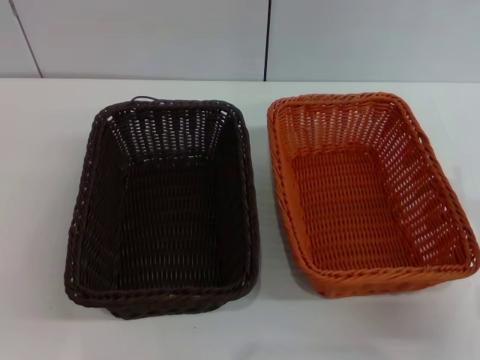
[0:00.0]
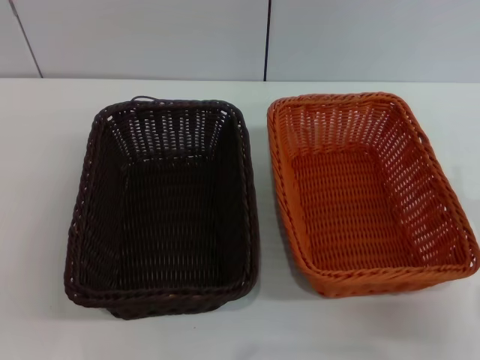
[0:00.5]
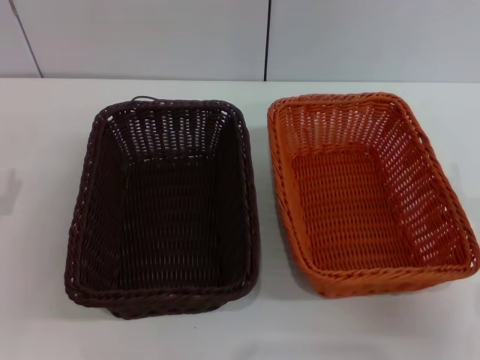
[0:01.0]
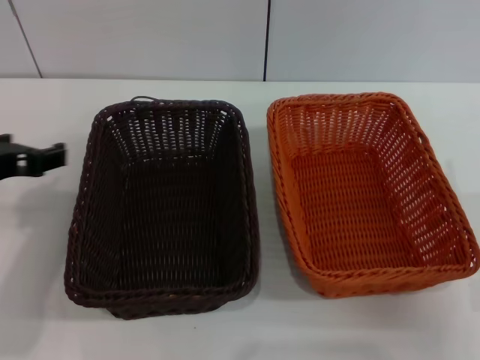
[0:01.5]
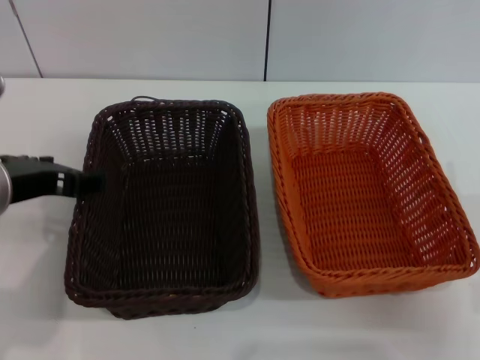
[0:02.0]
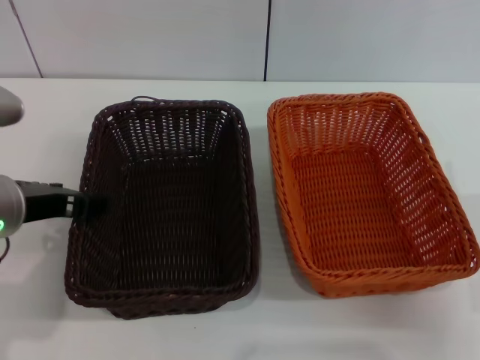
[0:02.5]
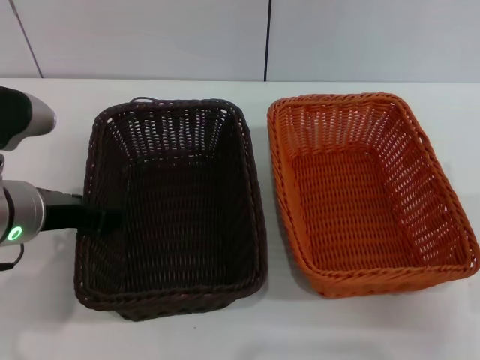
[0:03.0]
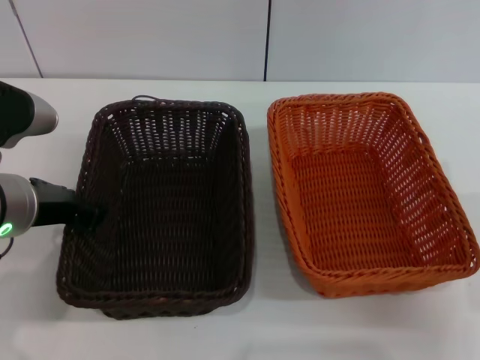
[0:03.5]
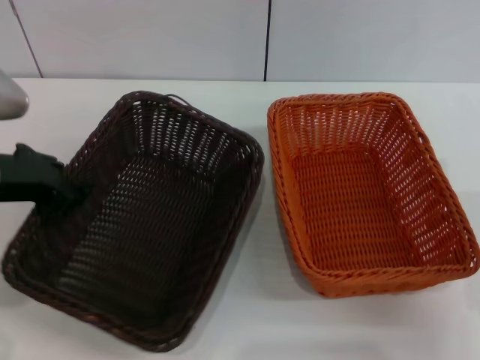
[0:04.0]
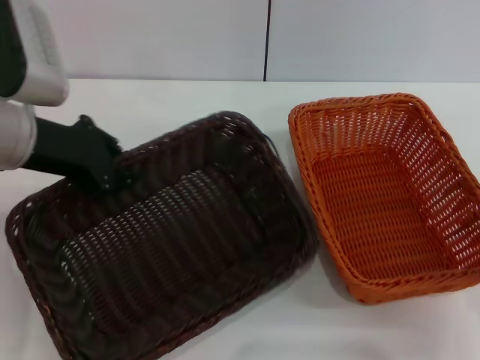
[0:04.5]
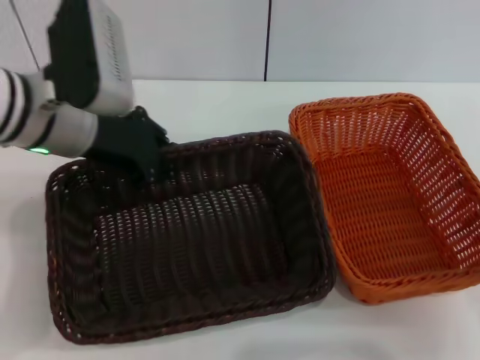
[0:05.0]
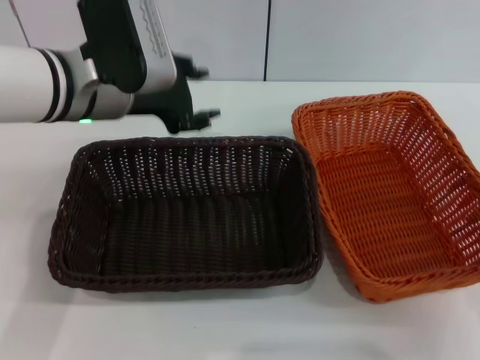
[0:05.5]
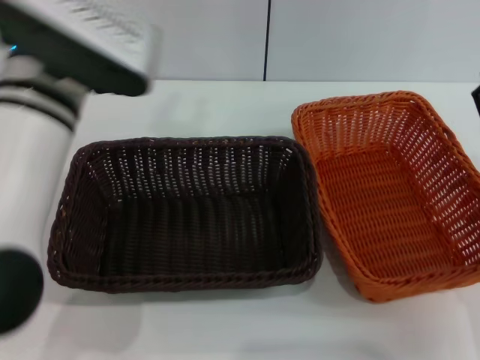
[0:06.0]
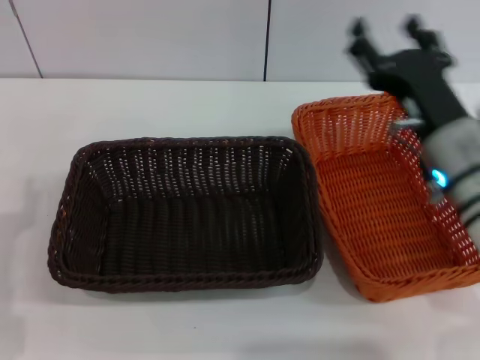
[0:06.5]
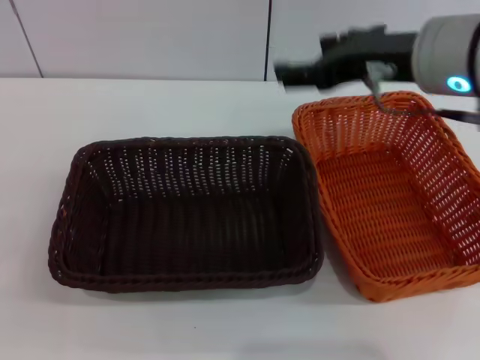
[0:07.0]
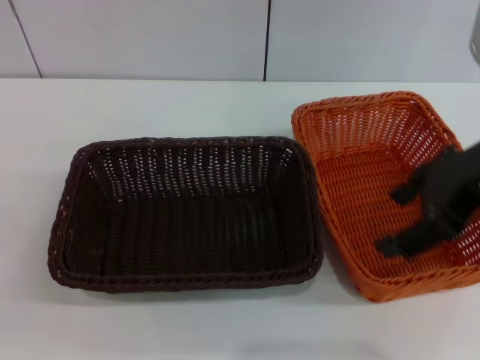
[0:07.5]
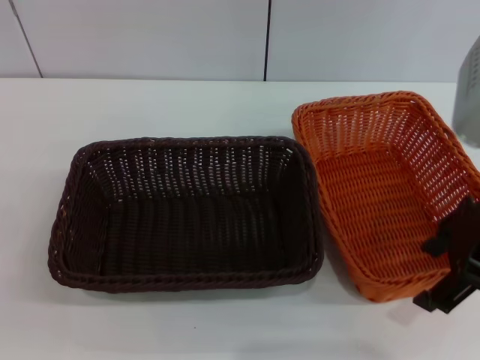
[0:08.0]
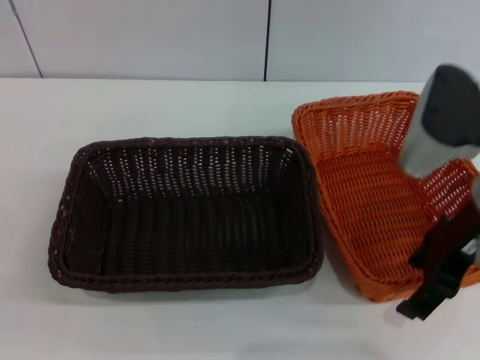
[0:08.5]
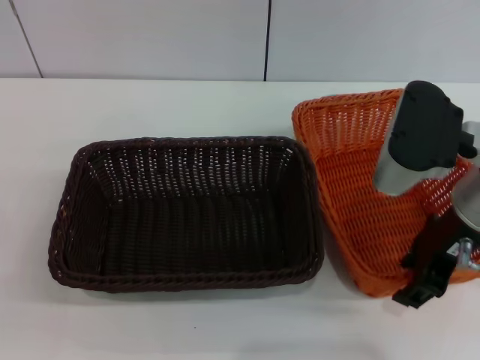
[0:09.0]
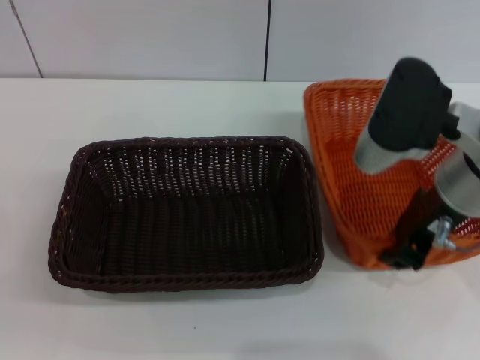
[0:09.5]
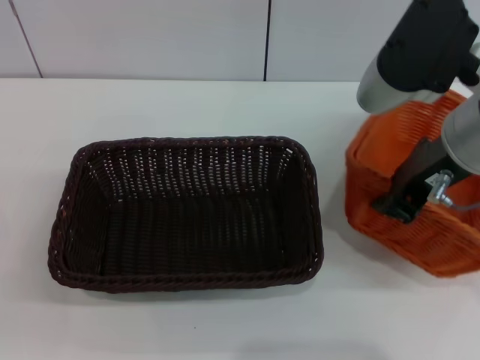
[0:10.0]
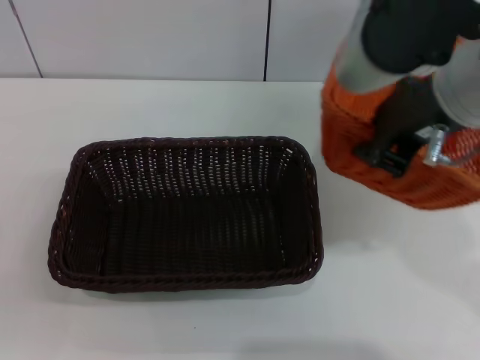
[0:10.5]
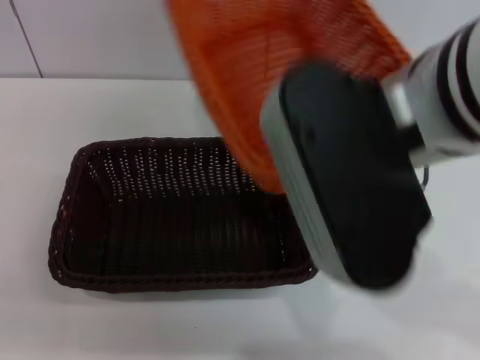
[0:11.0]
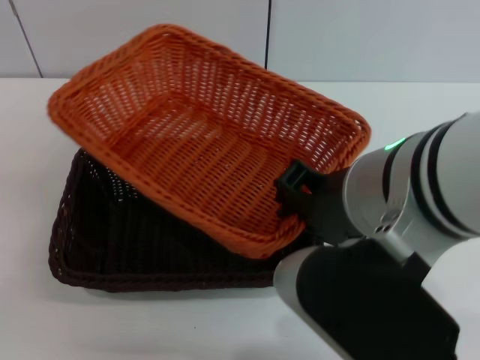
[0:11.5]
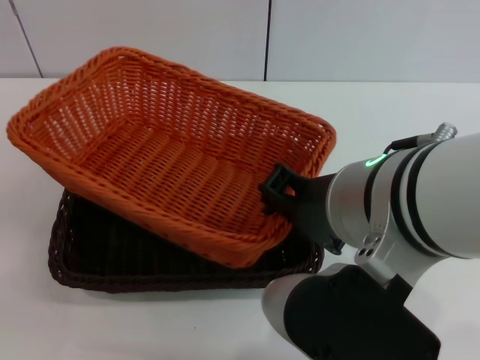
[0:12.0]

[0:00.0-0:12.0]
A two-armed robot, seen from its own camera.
Step, 0:00.0 to 0:04.0: Pick up the dark basket with the left gripper.
Step, 0:04.5 to 0:05.0: Place the dark basket in the center of view with the left gripper.
Step, 0:05.5 to 0:10.0: Pick up the light basket with the right gripper.
0:00.0 to 0:02.0: The left gripper travels upward, to the right and forward by some 25 cm.
0:02.0 to 0:04.0: The left gripper closes its fingers.
0:04.0 to 0:06.0: The left gripper goes roughly 10 cm to the right, and opens up.
0:06.0 to 0:08.0: The right gripper travels upward by about 15 cm; the left gripper shifts some 30 cm to the left, downward and backward.
0:08.0 to 0:10.0: The right gripper moves to the left, about 5 cm, and closes.
0:10.0 to 0:12.0: The right gripper goes some 15 cm to the left and backward.

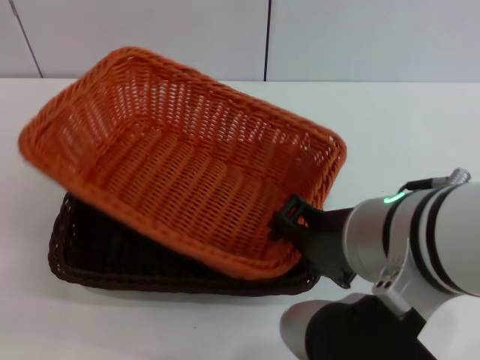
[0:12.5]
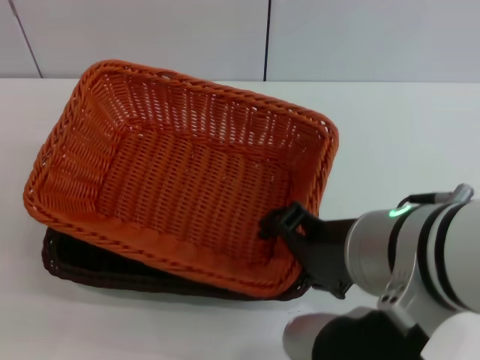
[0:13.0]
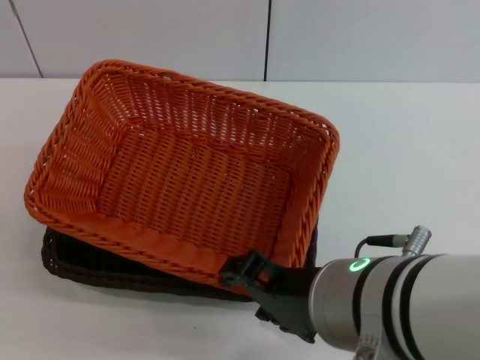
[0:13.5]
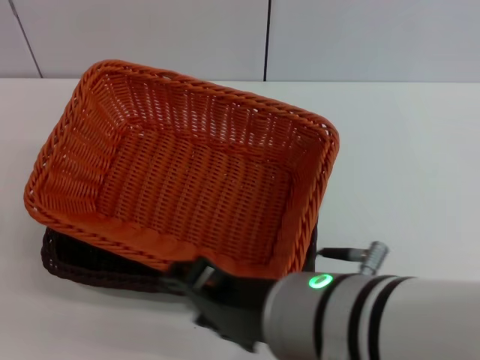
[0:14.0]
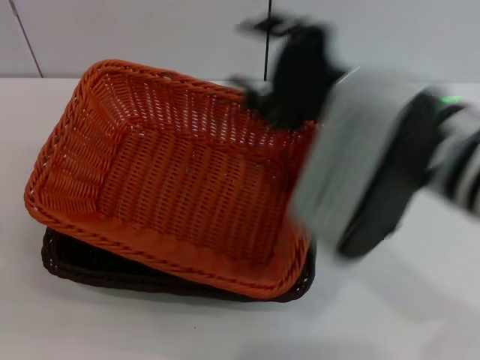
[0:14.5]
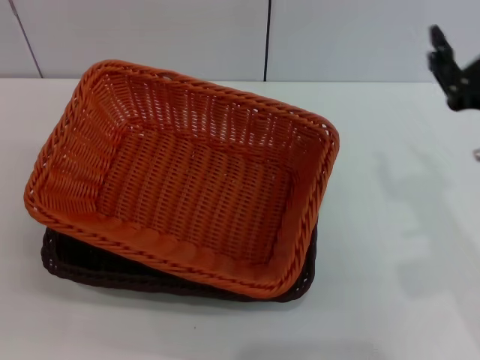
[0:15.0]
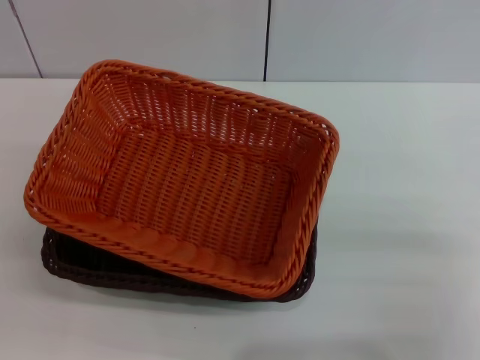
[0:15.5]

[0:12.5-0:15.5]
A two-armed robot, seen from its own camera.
0:12.5 to 0:14.0: The right gripper shifts by about 5 cm, and opens its fingers.
0:14.0 to 0:15.5: The right gripper shifts roughly 25 cm to the right and downward.

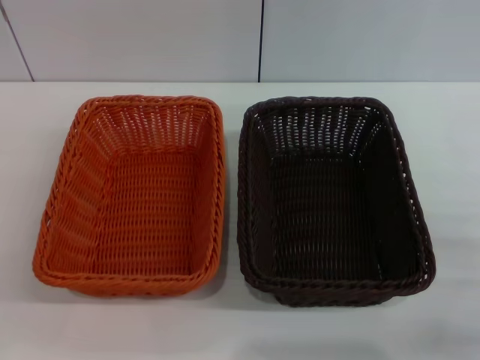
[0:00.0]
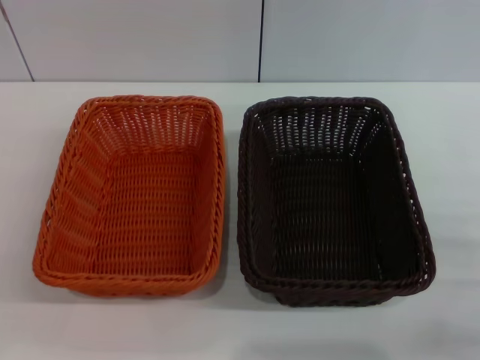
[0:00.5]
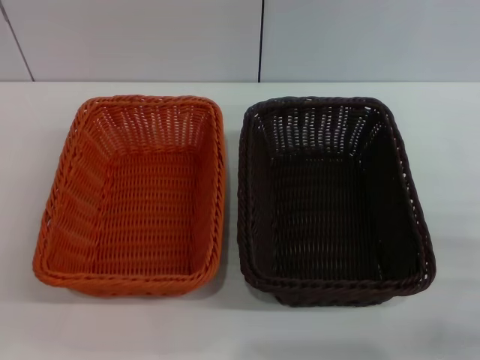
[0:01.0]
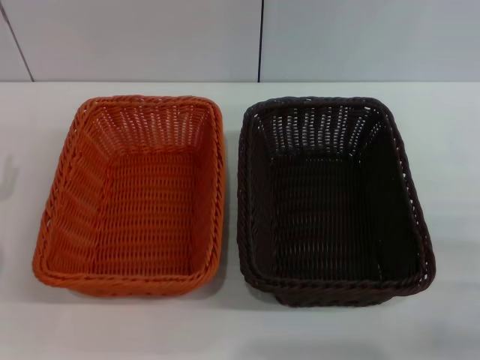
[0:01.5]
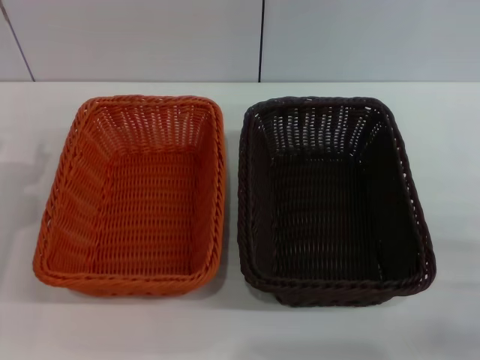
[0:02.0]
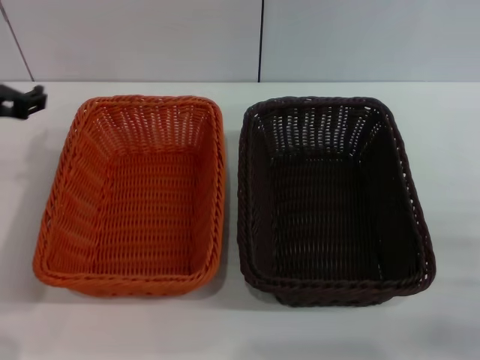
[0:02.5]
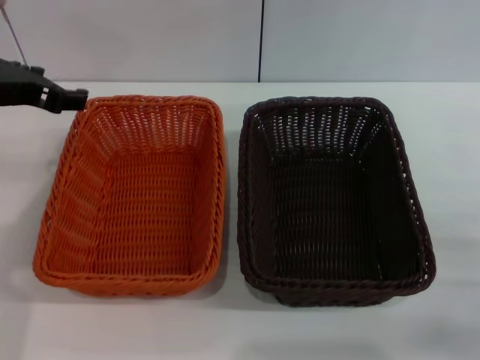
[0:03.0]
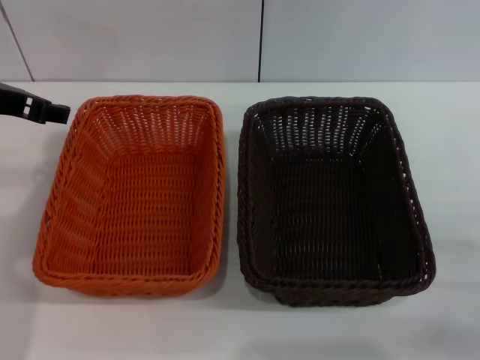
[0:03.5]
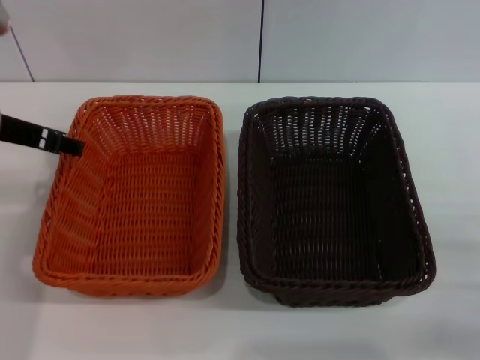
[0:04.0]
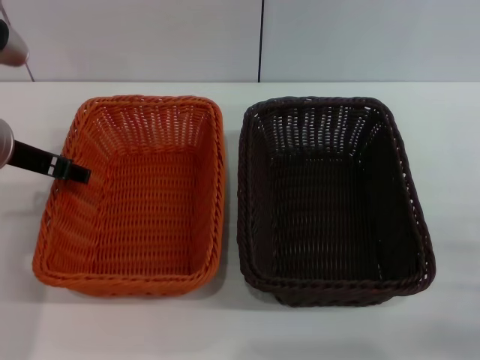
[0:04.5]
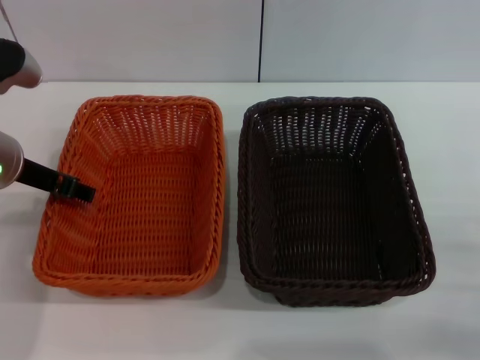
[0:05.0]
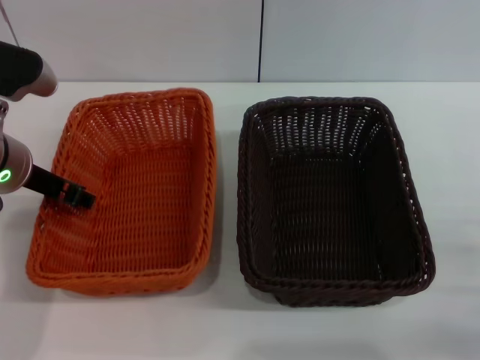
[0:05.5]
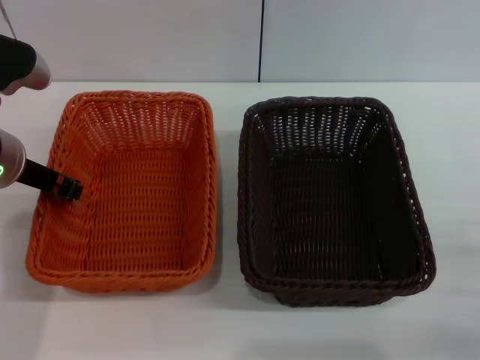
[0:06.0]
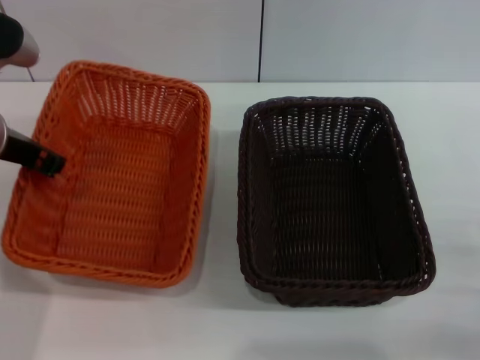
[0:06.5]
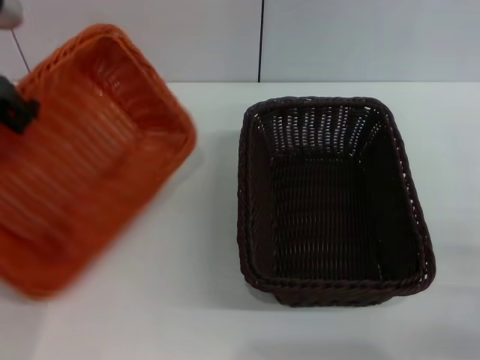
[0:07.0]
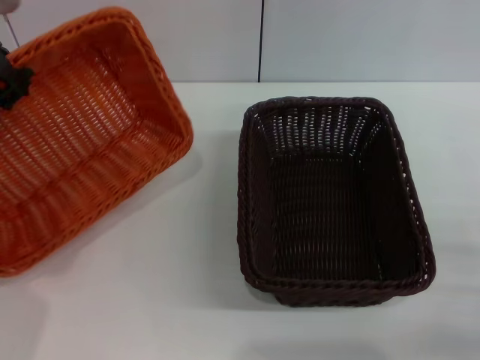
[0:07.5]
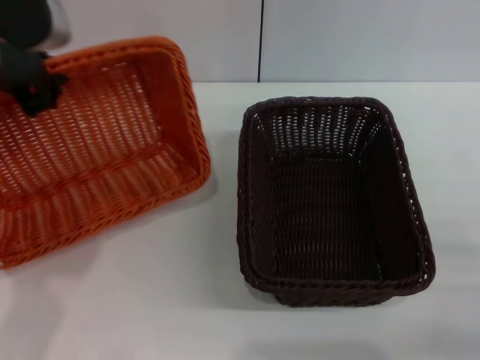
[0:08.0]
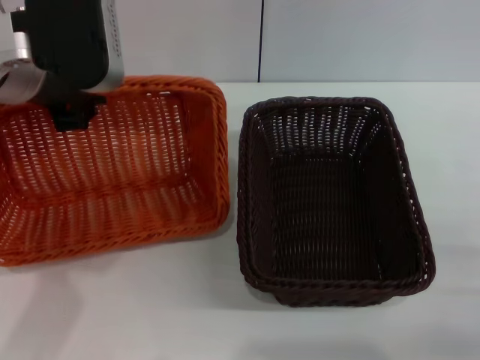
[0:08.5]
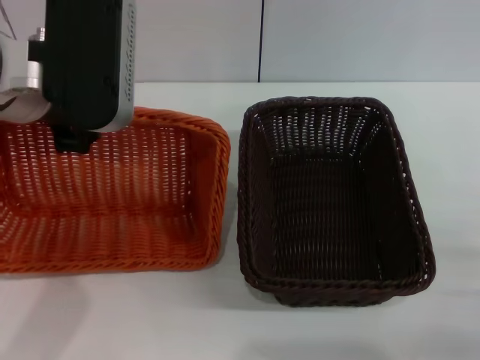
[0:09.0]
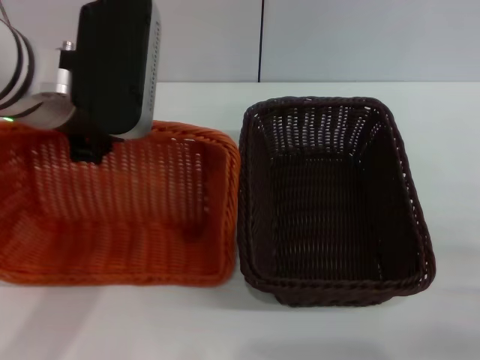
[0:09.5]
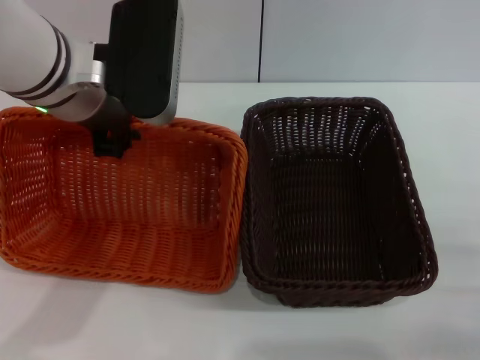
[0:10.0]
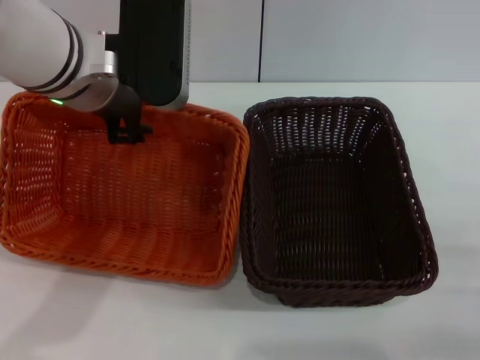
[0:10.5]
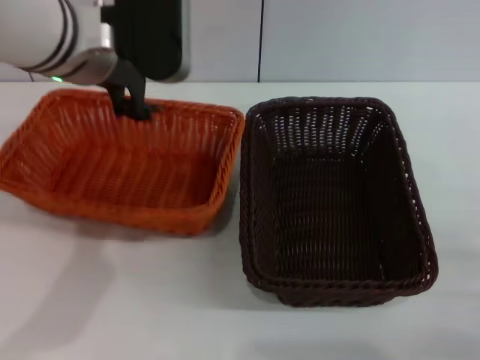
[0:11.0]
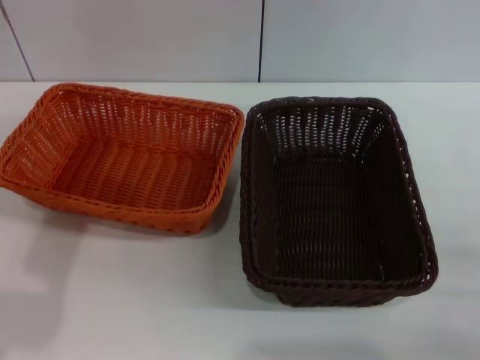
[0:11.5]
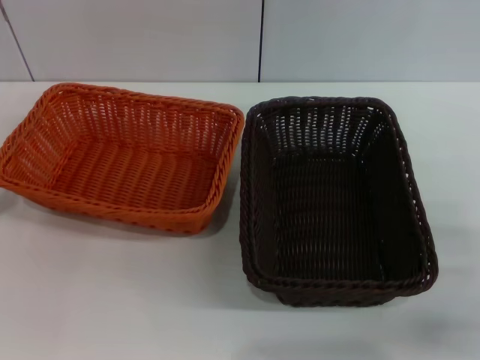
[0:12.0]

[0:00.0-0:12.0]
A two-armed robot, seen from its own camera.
Step, 0:00.0 to 0:07.0: Pick up the light basket with the left gripper.
Step, 0:07.5 to 0:11.0: Place the light basket in the center of view with the left gripper.
0:02.0 to 0:04.0: The left gripper travels upward, to the right and forward by some 10 cm.
0:04.0 to 0:06.0: The left gripper closes its fingers.
0:06.0 to 0:08.0: The left gripper travels upward by some 10 cm, and closes.
0:08.0 to 0:10.0: The left gripper heads to the right, covering approximately 5 cm.
0:10.0 to 0:12.0: The left gripper heads to the left, backward and downward, covering roughly 25 cm, and opens.
